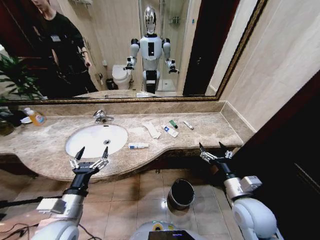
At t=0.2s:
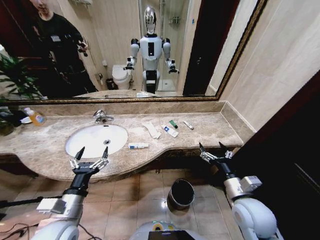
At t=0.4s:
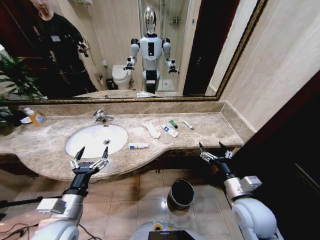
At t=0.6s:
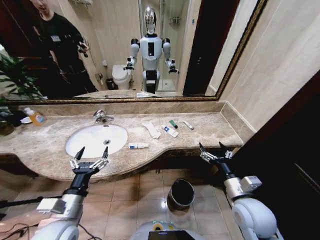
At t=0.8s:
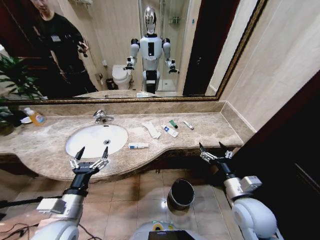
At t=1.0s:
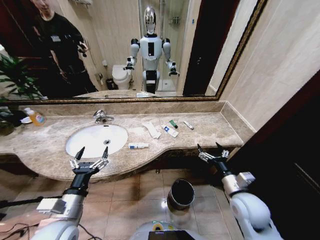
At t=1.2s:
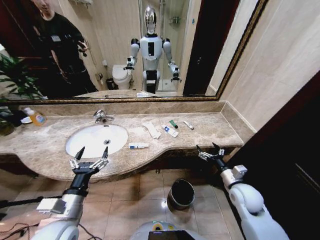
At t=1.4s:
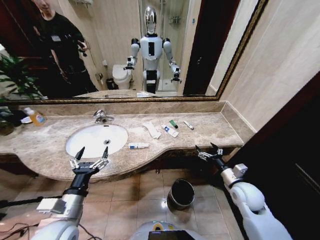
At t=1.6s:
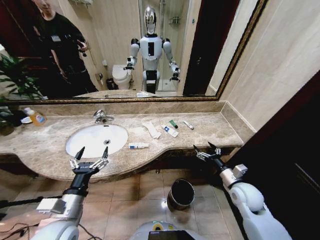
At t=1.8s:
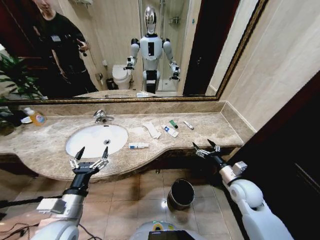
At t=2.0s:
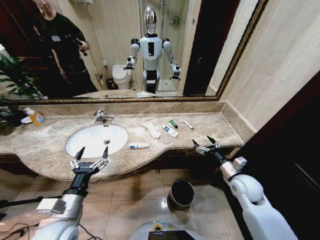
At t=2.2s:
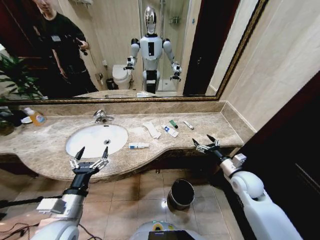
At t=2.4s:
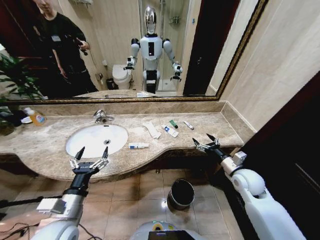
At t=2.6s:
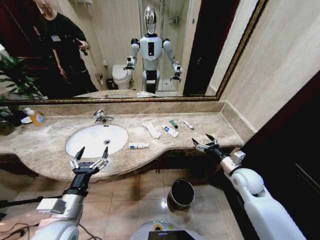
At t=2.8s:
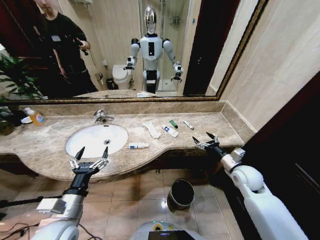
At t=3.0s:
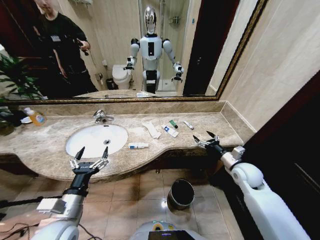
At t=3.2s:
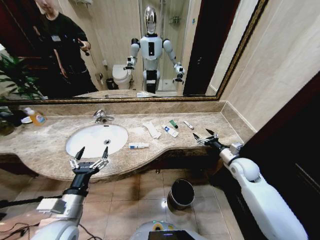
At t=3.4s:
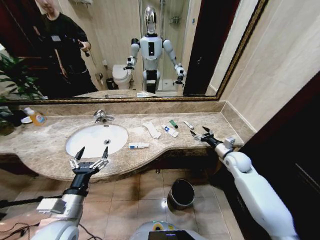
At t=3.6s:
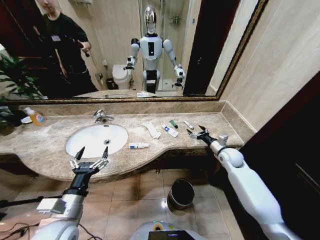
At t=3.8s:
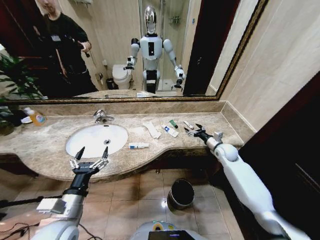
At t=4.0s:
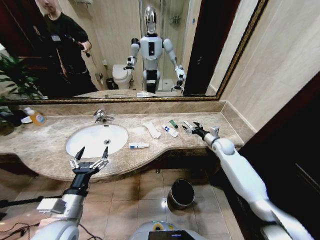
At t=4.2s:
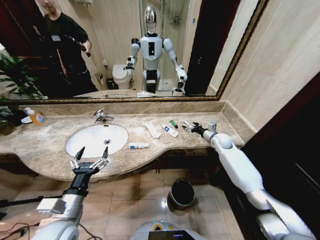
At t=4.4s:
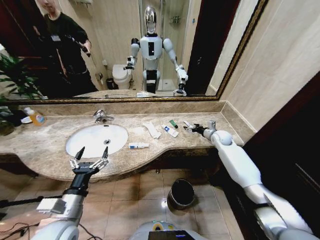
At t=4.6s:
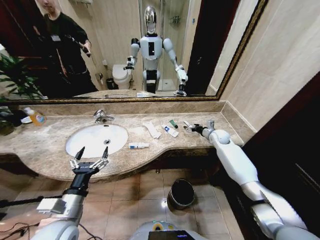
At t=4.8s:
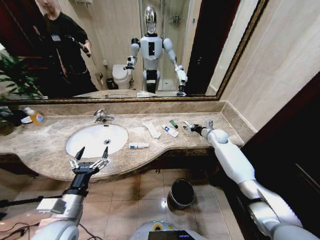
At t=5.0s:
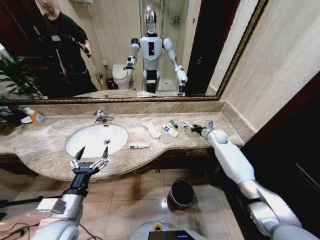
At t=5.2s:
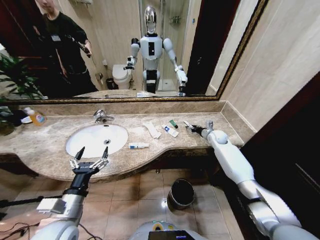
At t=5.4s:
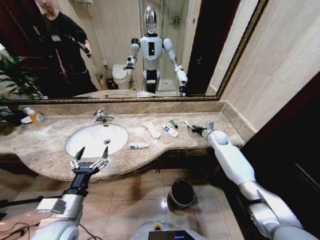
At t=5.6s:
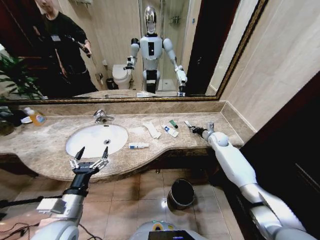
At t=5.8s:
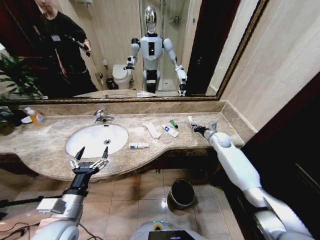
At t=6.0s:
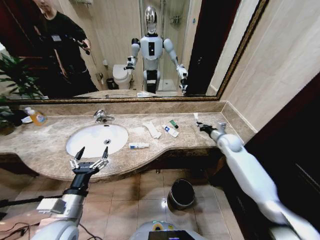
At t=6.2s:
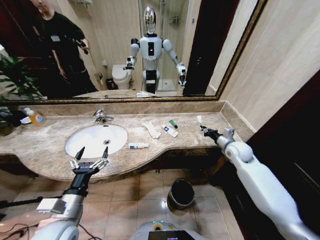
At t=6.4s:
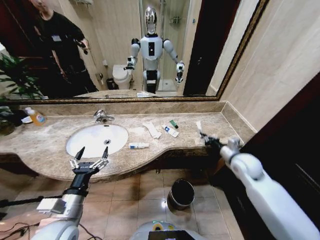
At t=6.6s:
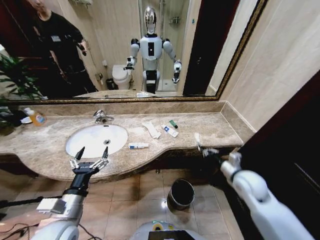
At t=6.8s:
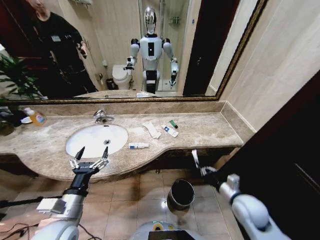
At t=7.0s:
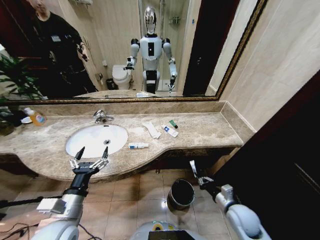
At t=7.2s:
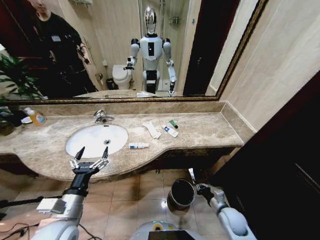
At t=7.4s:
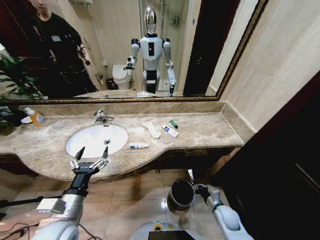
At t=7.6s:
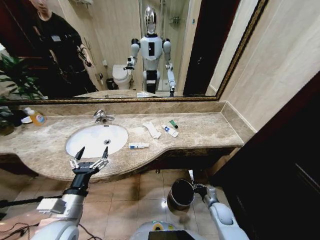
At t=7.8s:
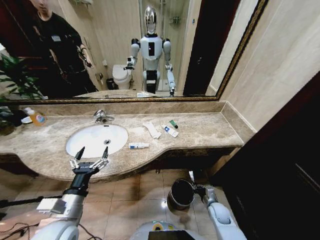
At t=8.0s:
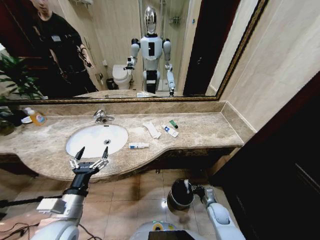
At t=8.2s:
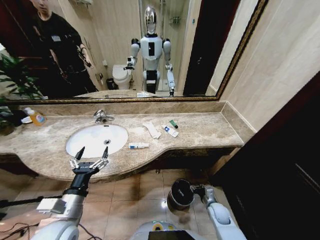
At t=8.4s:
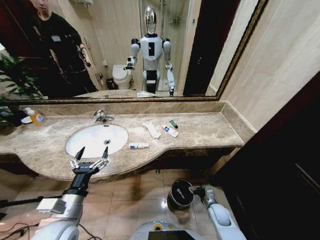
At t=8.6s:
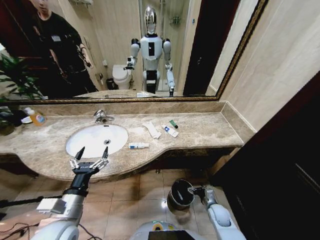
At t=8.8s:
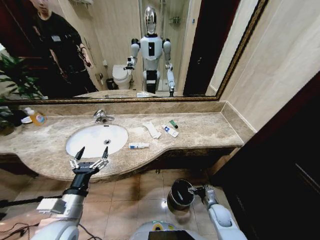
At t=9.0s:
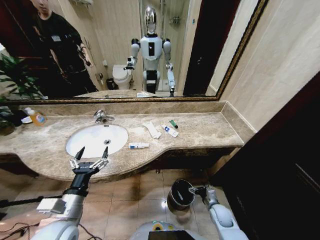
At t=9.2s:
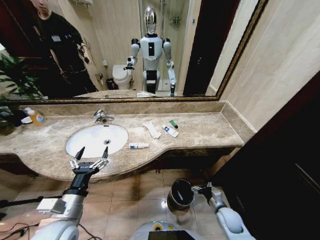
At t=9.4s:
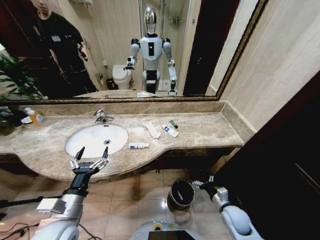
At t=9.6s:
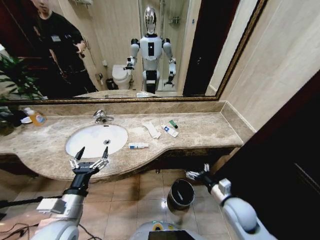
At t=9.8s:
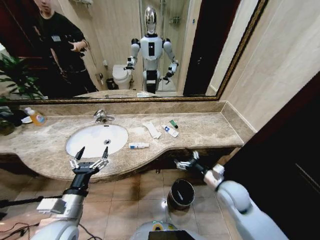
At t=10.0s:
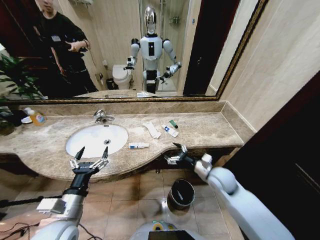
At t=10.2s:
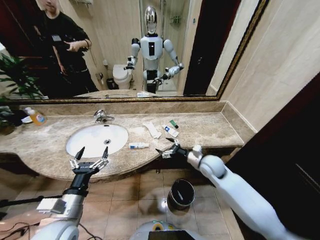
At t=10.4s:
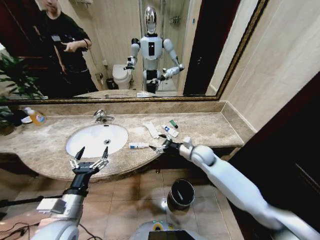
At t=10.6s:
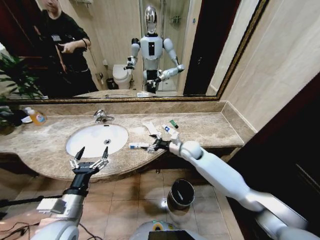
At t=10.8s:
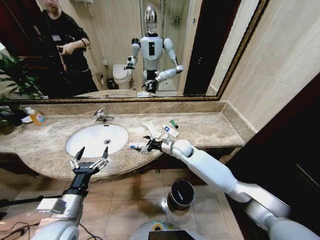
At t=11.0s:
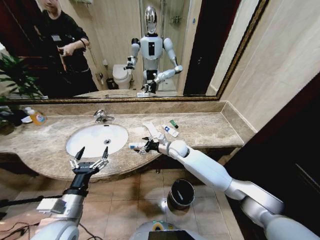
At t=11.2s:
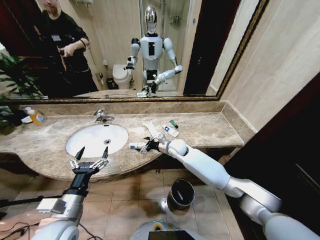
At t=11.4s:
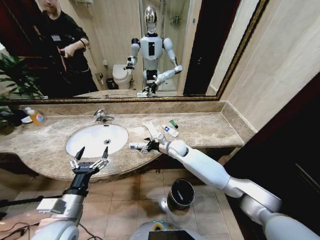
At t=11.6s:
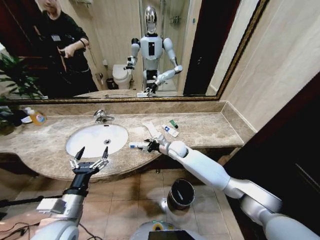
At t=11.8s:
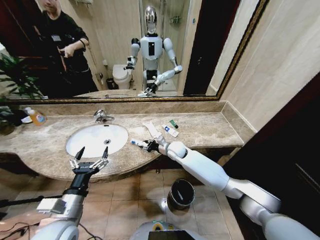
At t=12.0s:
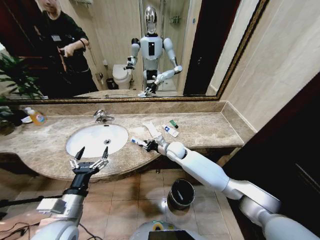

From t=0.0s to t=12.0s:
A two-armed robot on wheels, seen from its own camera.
Task of the whole recording: Pick up the trash from the sink and place it in the trash bin.
From t=1.6s to t=3.0s: The right gripper is displaced forward by about 10 cm.
From t=3.0s to t=4.4s: The right gripper is displaced forward by some 20 cm.
From t=4.4s to t=6.0s: The right gripper moves backward, approximately 5 cm, and closes.
From t=6.0s to t=7.6s: The right gripper goes roughly 35 cm downward and backward.
From t=7.6s to t=9.0s: The right gripper opens its fingers.
From t=9.0s to t=10.4s: The right gripper goes about 35 cm upward, forward and to the left.
From t=10.4s to t=12.0s: The right gripper goes about 10 cm to the left, and closes.

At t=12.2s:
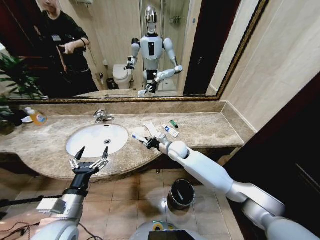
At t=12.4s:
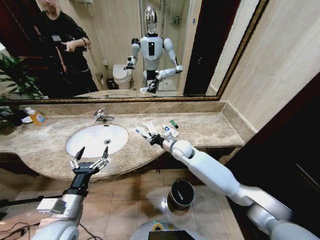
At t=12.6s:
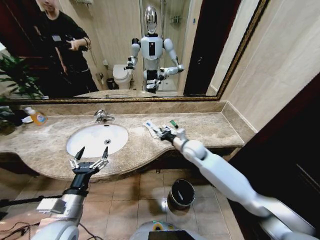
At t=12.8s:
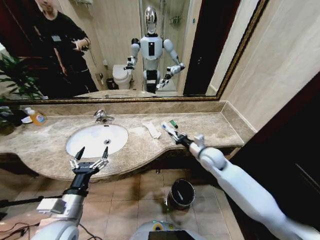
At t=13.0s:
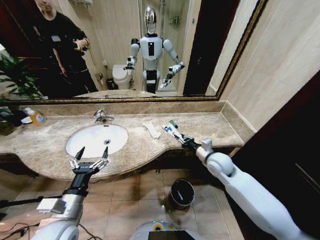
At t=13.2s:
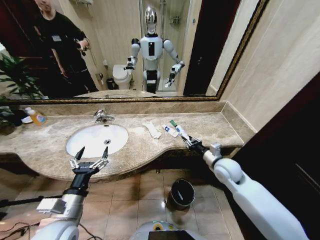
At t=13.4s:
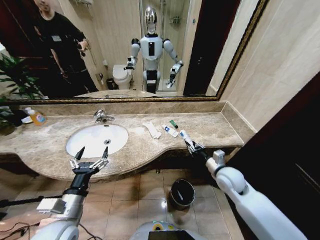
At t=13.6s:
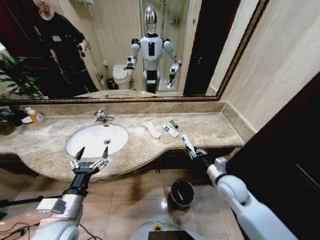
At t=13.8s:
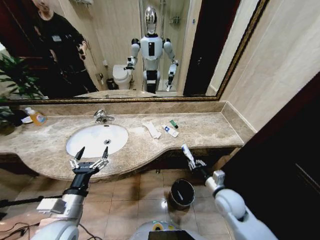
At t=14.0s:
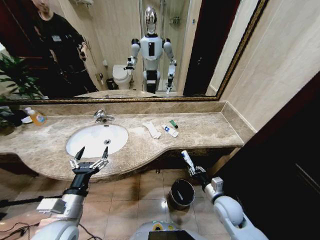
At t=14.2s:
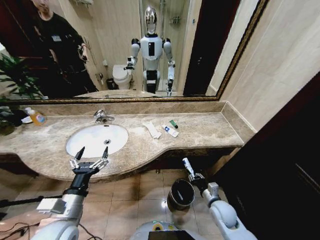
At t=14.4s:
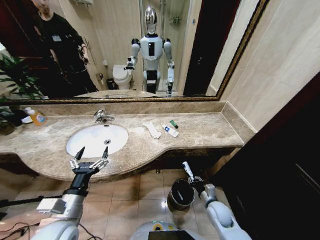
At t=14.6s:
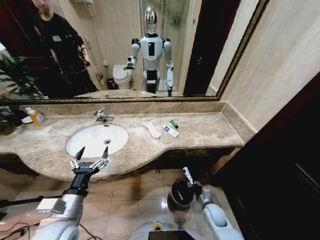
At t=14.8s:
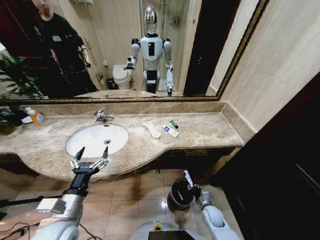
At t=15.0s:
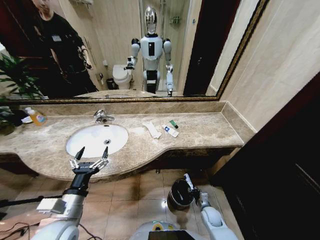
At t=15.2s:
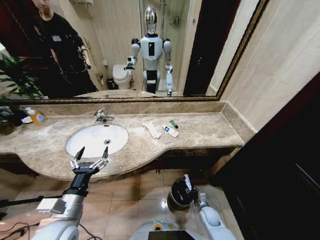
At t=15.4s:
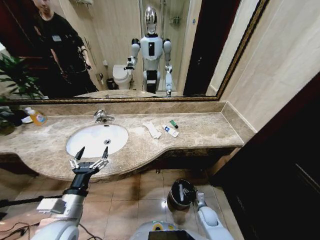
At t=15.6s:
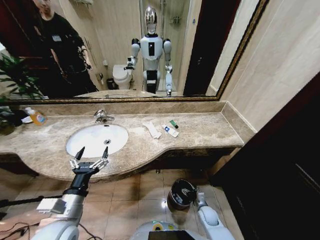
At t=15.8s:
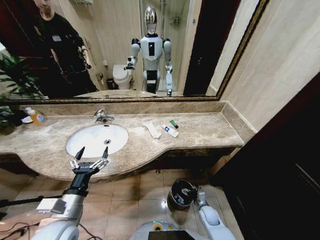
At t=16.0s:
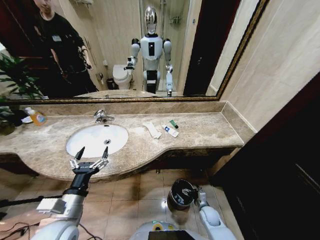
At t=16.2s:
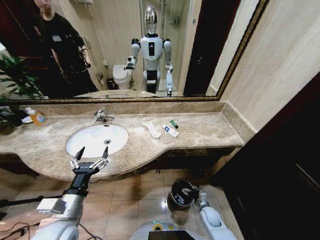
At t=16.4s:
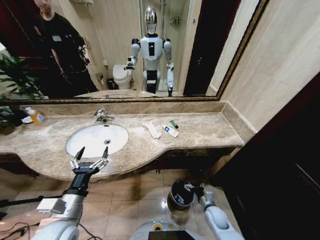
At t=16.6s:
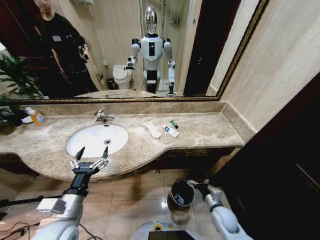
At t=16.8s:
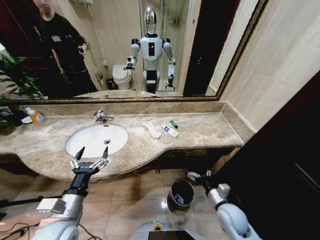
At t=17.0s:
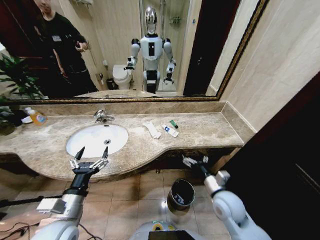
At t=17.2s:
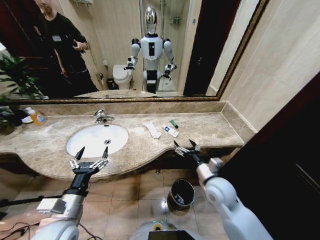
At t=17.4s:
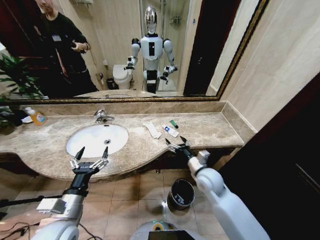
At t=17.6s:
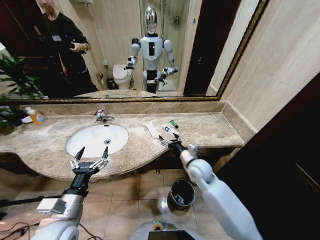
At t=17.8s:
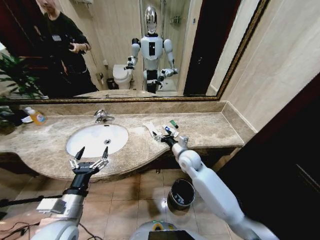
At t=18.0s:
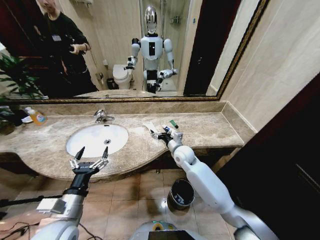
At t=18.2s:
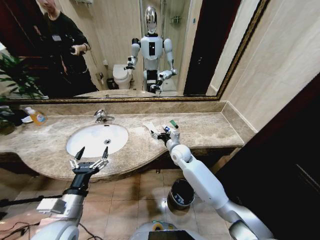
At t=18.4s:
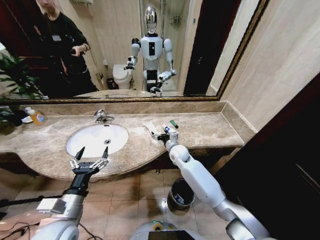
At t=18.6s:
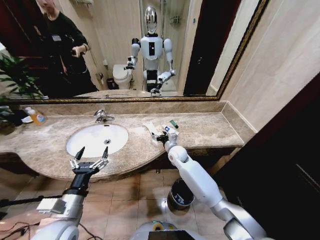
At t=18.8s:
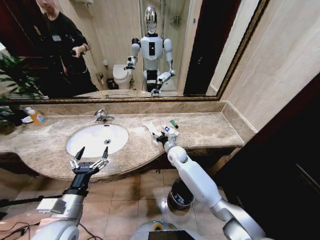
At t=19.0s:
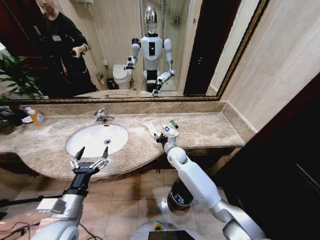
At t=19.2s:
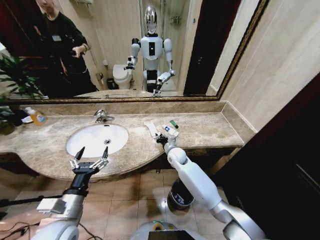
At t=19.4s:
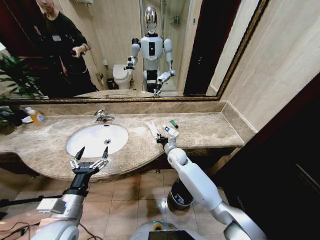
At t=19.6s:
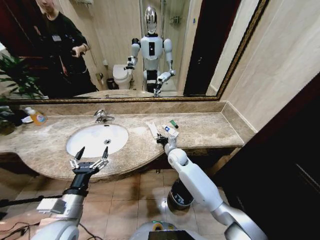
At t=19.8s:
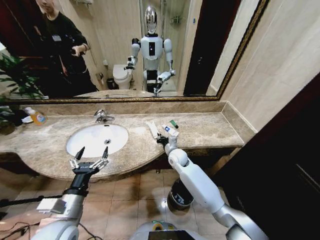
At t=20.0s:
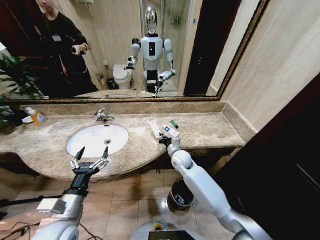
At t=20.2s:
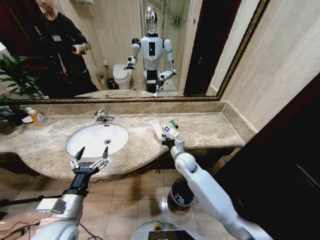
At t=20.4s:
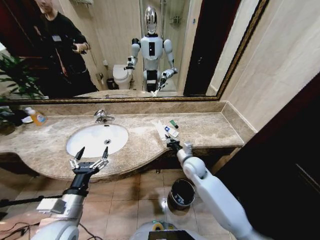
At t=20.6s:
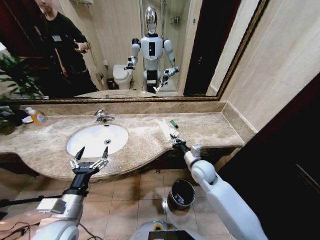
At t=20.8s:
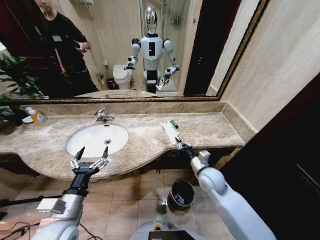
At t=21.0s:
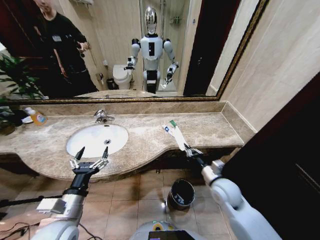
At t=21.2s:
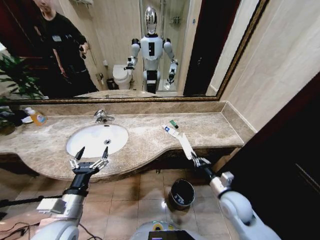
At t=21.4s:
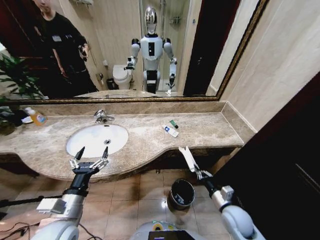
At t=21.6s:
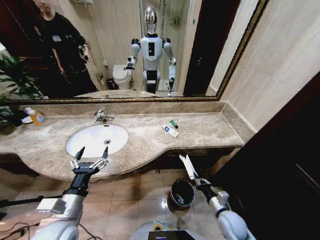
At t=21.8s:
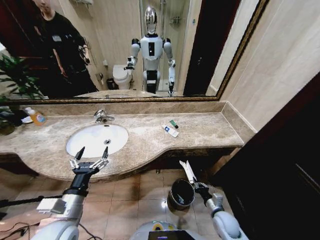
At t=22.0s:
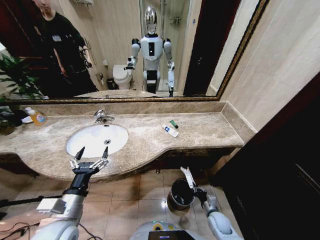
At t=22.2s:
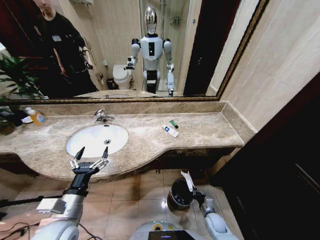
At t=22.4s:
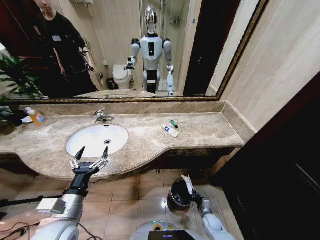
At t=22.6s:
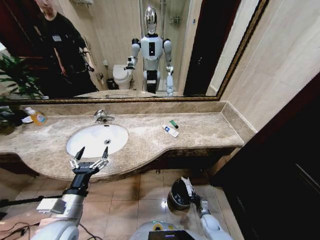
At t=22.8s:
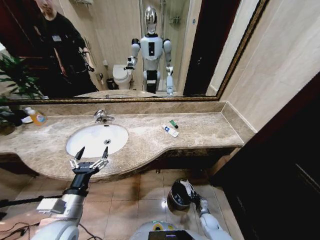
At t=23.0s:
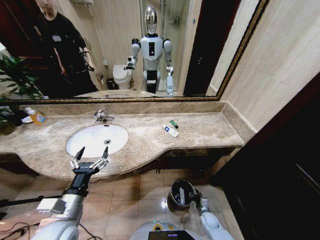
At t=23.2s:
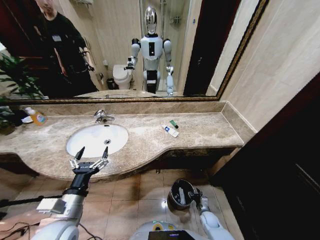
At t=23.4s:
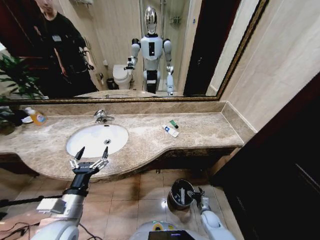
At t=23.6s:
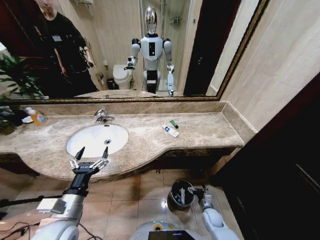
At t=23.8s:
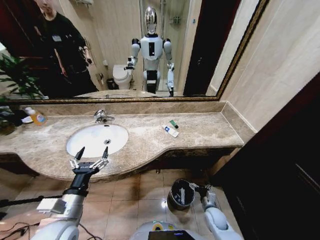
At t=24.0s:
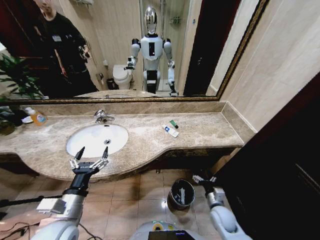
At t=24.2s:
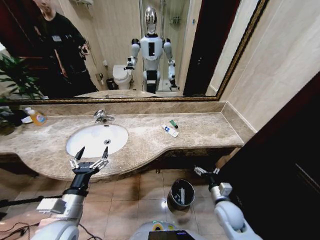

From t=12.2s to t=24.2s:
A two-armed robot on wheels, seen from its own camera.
Task of the whole recording: Pick up the trash from the sink and place it in the trash bin.
From t=12.2s to t=13.8s: The right gripper goes about 30 cm backward and to the right.
From t=13.8s to t=15.2s: The right gripper moves downward, about 25 cm.
From t=15.2s to t=16.6s: The right gripper goes some 10 cm upward, and opens.
From t=16.6s to t=18.2s: The right gripper shifts approximately 35 cm forward, to the left and upward.
From t=18.2s to t=19.8s: The right gripper closes up.
From t=19.8s to t=21.2s: The right gripper travels backward and to the right by about 30 cm.
From t=21.2s to t=22.6s: The right gripper goes approximately 30 cm downward.
From t=22.6s to t=24.2s: The right gripper travels upward by roughly 25 cm, and opens.
